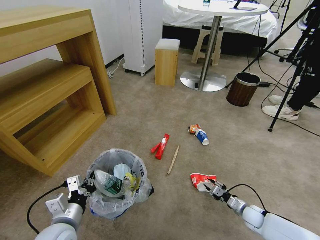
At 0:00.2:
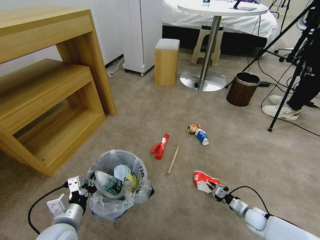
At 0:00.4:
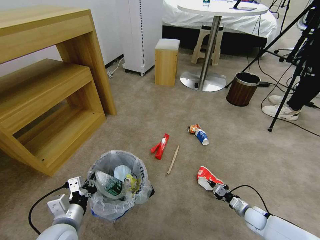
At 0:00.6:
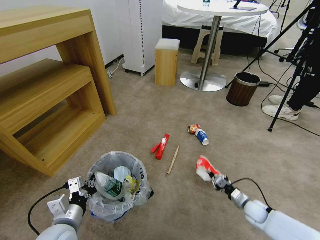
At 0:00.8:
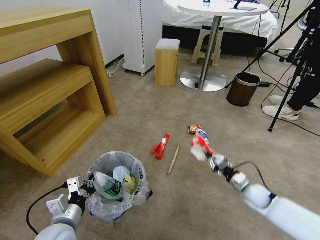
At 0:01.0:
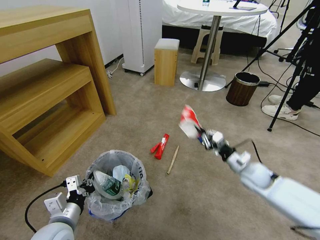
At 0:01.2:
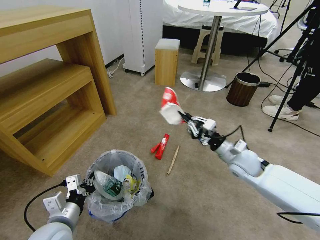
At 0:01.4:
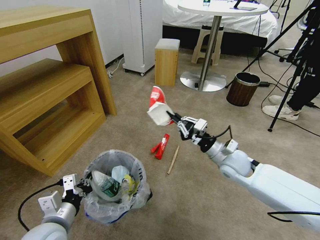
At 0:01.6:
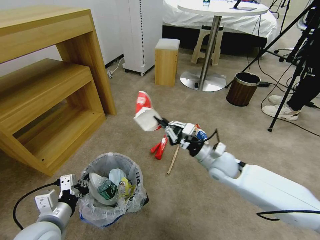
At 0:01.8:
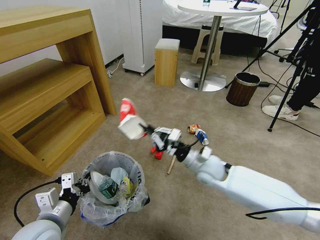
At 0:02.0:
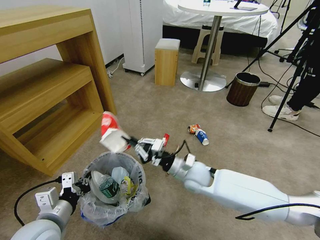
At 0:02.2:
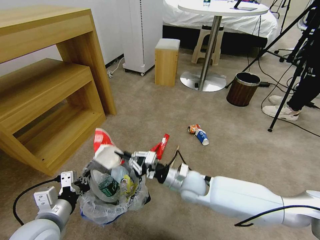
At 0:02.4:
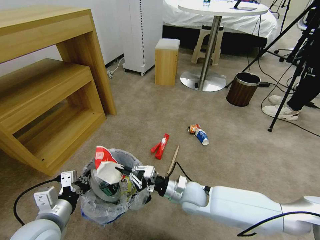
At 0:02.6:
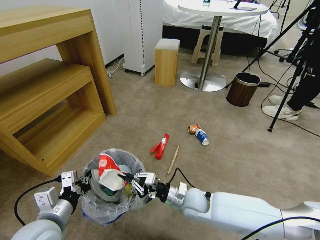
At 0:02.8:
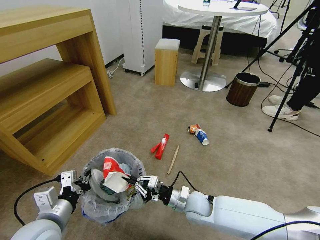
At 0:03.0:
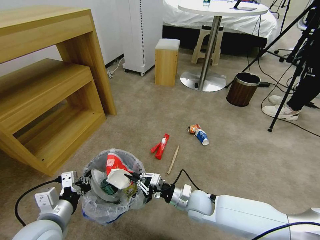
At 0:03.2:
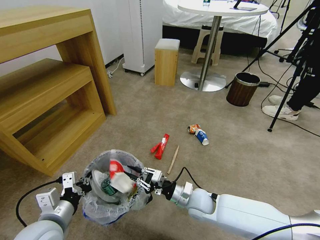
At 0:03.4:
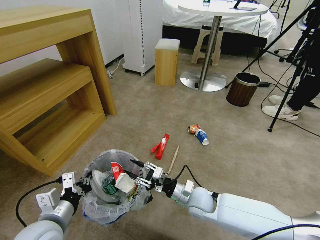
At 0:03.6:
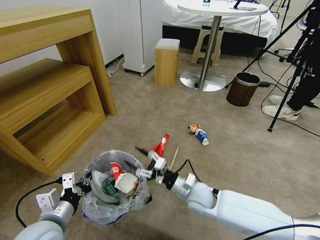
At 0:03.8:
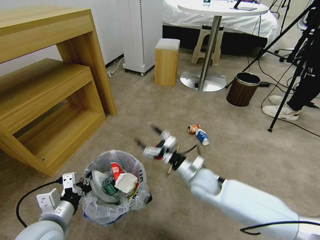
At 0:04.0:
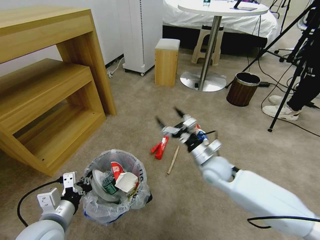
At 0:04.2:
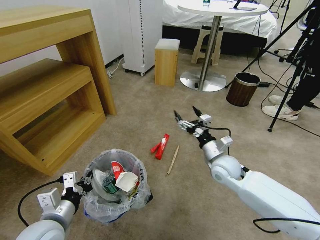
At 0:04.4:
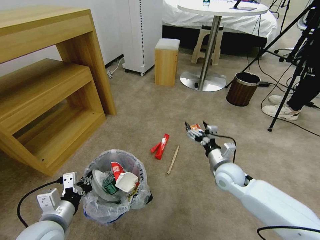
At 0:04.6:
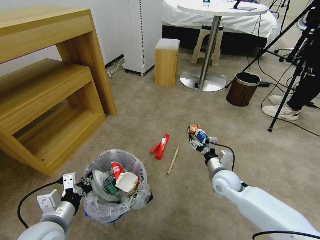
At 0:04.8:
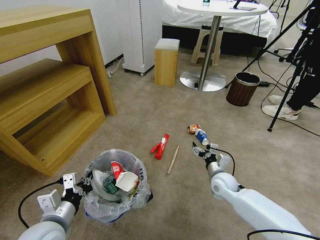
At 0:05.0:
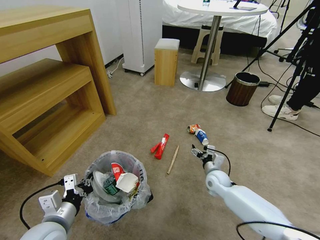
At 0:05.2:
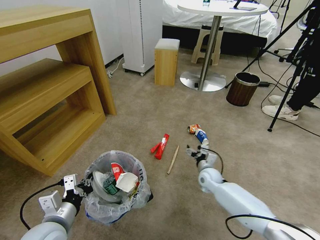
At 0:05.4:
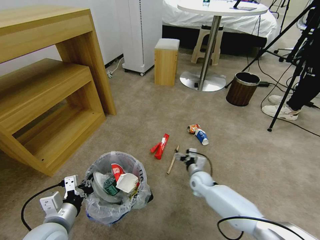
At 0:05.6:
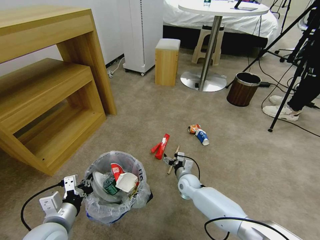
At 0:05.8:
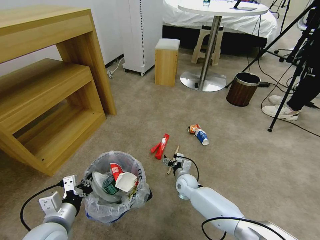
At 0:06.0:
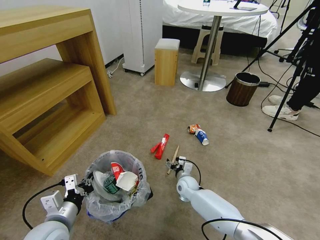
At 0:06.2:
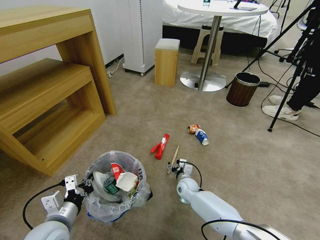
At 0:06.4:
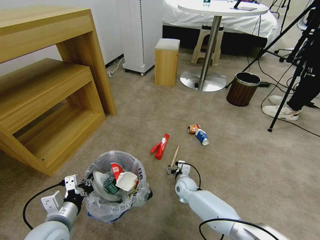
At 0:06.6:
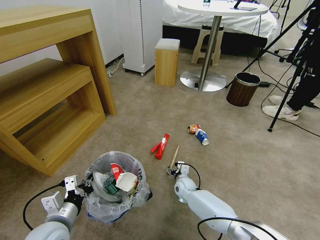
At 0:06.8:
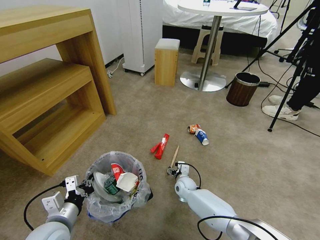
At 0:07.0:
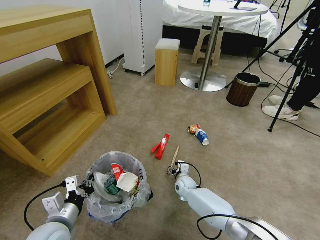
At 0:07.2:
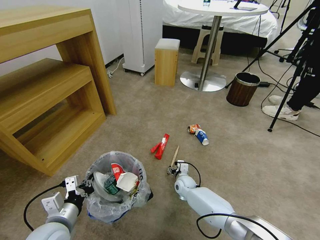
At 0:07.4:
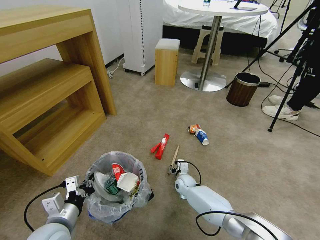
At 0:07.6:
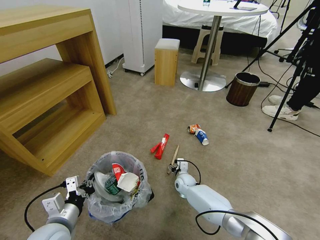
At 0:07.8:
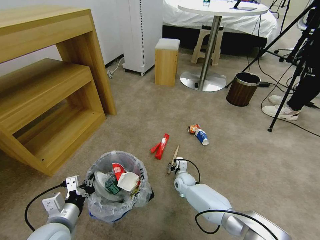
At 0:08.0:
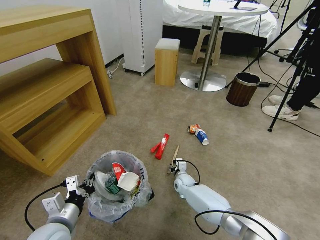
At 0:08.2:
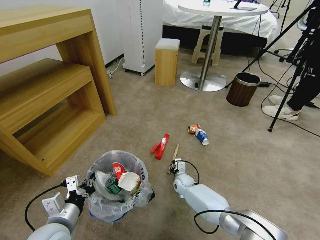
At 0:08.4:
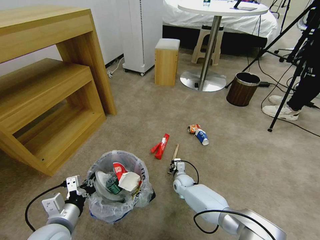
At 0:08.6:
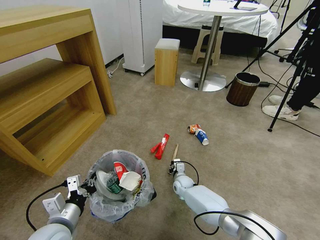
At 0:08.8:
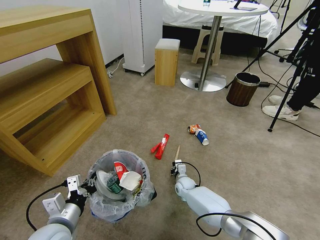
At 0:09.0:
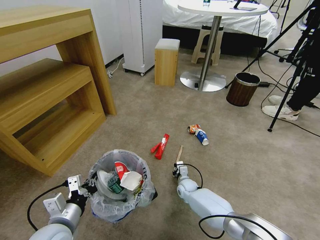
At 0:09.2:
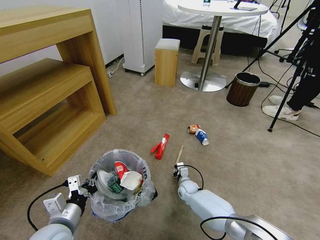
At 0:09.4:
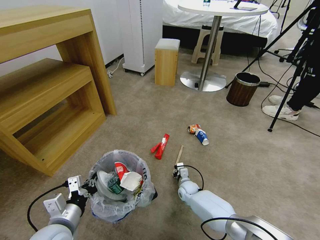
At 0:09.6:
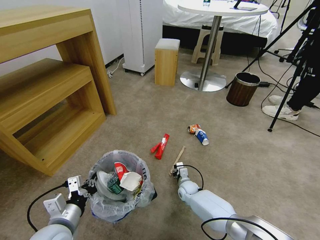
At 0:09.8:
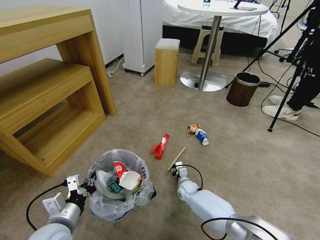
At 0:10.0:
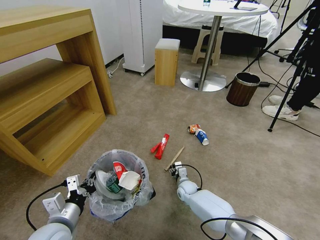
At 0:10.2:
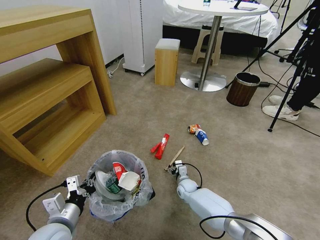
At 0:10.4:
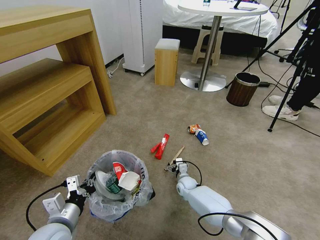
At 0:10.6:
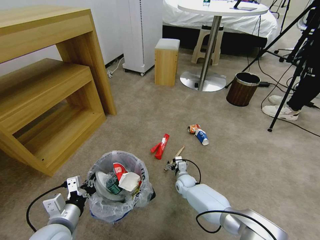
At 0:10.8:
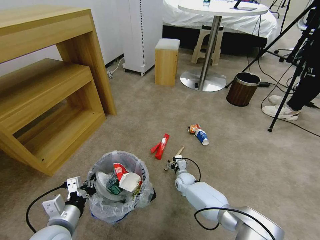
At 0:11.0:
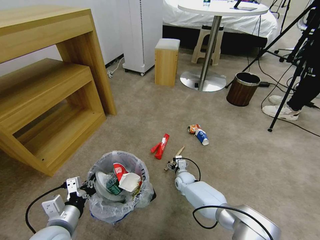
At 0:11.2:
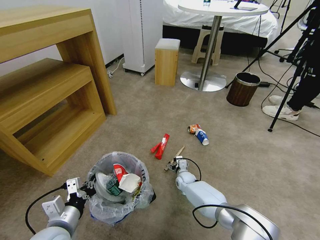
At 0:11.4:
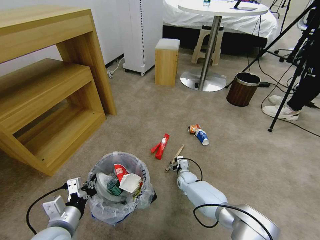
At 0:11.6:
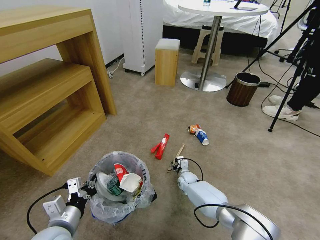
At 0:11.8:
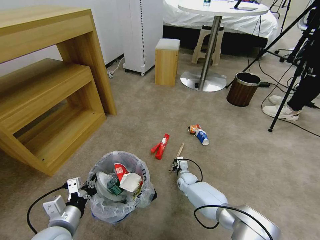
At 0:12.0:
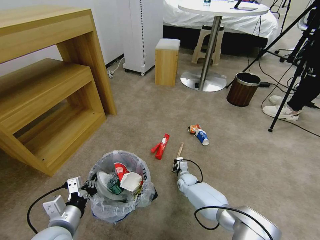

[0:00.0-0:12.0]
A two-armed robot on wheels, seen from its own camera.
Task of the whole recording: Pick up the trash bin and place the garbage on the floor into it.
0:00.0 to 0:01.6: The right gripper heads upward and to the left, covering some 35 cm, and closes.
0:01.6 to 0:03.0: The right gripper shifts approximately 20 cm downward, to the left and backward.
0:03.0 to 0:04.4: The right gripper is displaced to the right, upward and forward by about 15 cm, and opens up.
0:04.4 to 0:06.0: The right gripper shifts about 20 cm downward and to the left.
0:06.0 to 0:07.6: There are only small adjustments of the grippers.
0:07.6 to 0:09.0: The right gripper closes its fingers.
0:09.0 to 0:10.4: The right gripper opens.
0:10.4 to 0:12.0: The right gripper closes up.

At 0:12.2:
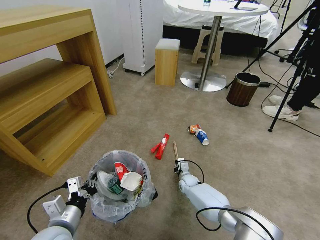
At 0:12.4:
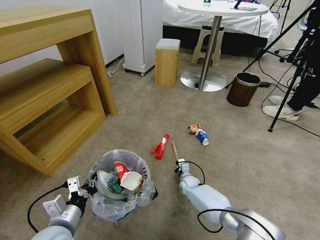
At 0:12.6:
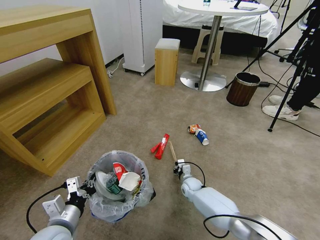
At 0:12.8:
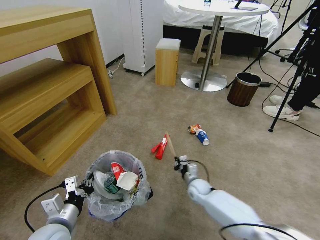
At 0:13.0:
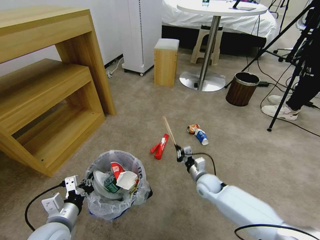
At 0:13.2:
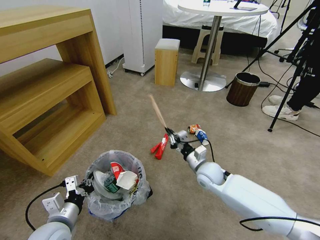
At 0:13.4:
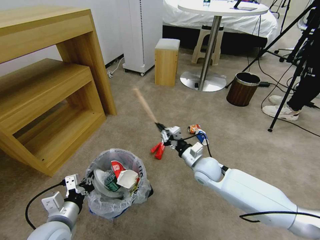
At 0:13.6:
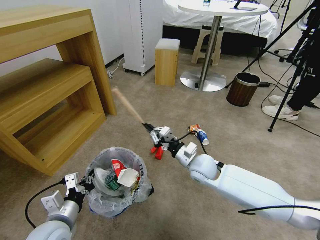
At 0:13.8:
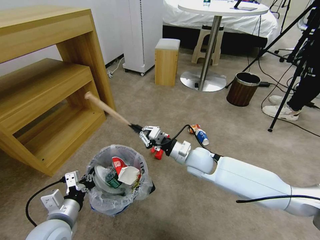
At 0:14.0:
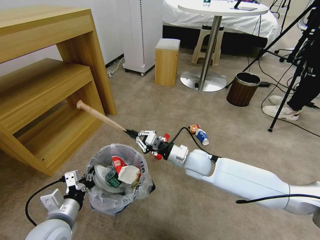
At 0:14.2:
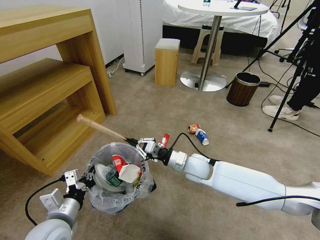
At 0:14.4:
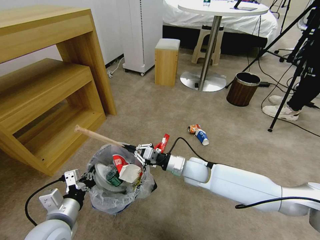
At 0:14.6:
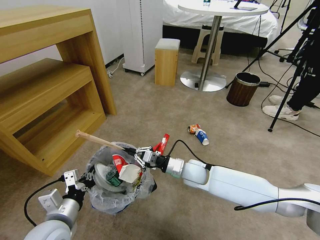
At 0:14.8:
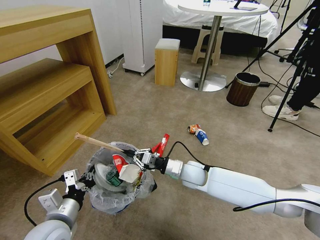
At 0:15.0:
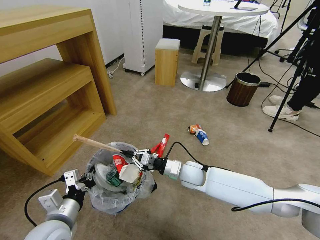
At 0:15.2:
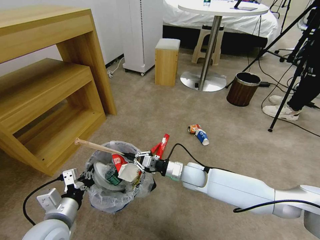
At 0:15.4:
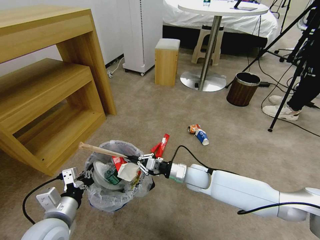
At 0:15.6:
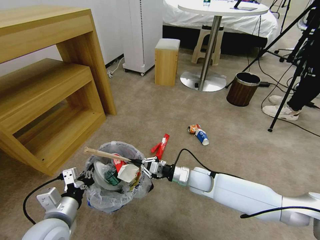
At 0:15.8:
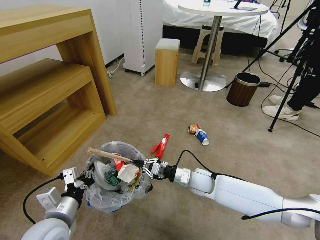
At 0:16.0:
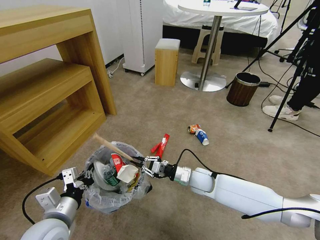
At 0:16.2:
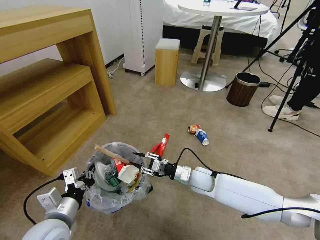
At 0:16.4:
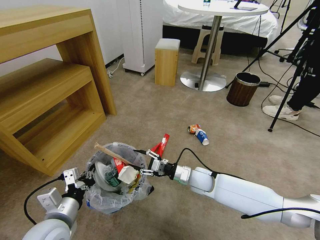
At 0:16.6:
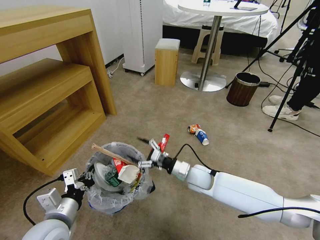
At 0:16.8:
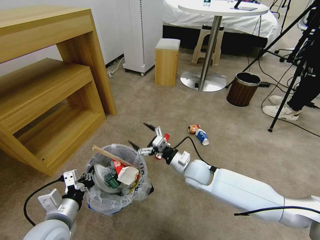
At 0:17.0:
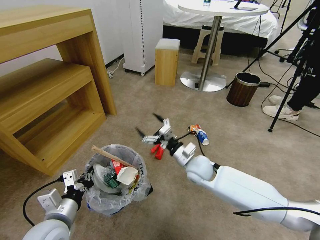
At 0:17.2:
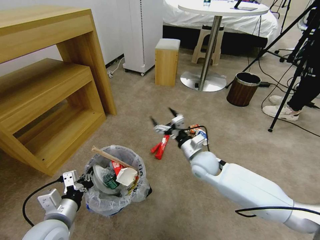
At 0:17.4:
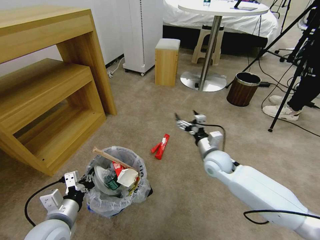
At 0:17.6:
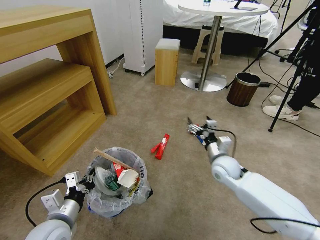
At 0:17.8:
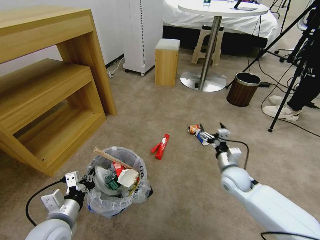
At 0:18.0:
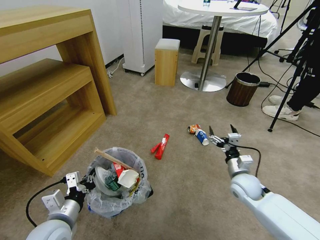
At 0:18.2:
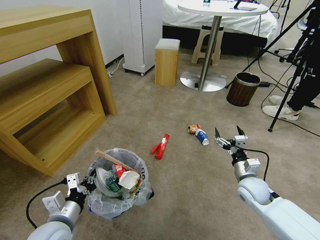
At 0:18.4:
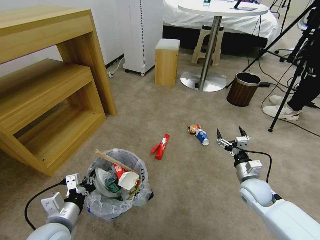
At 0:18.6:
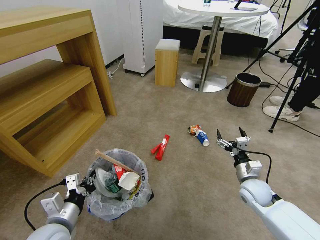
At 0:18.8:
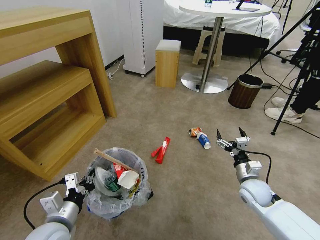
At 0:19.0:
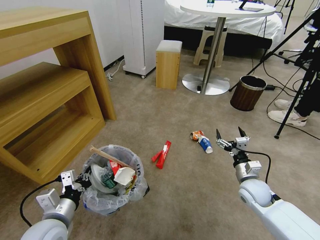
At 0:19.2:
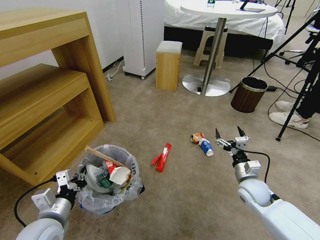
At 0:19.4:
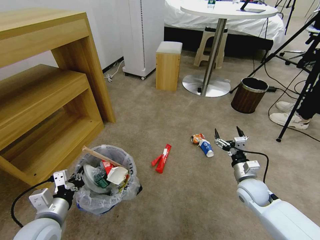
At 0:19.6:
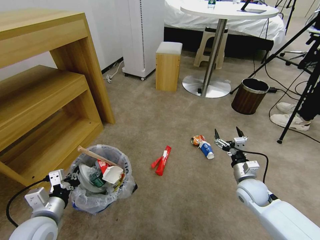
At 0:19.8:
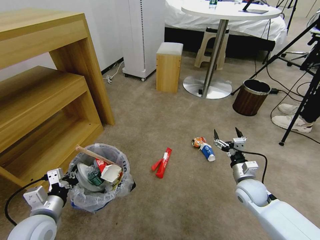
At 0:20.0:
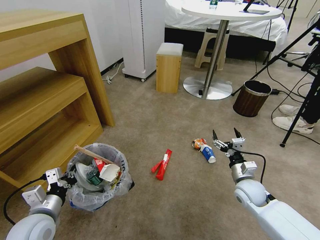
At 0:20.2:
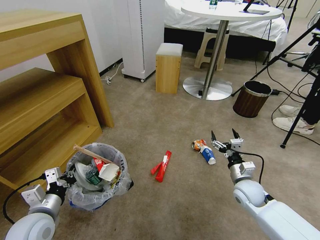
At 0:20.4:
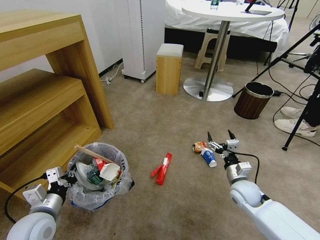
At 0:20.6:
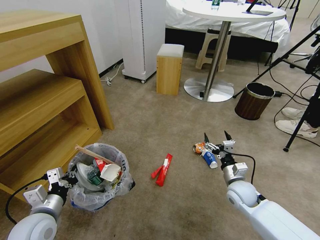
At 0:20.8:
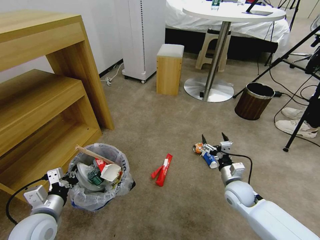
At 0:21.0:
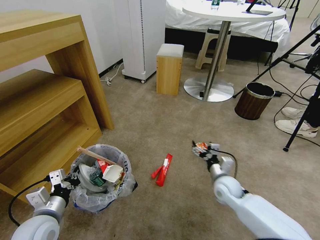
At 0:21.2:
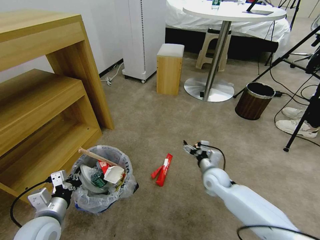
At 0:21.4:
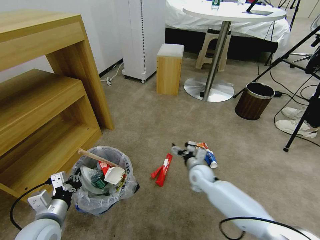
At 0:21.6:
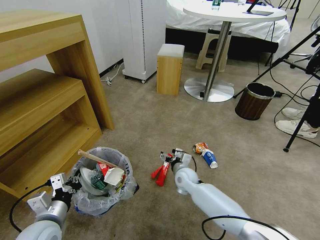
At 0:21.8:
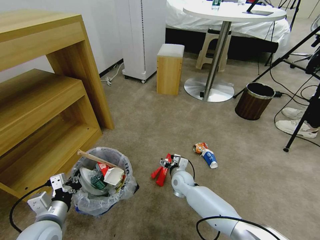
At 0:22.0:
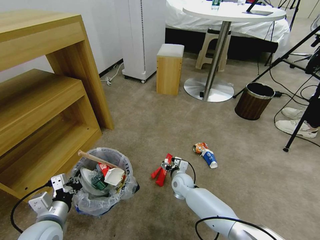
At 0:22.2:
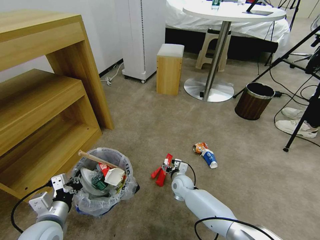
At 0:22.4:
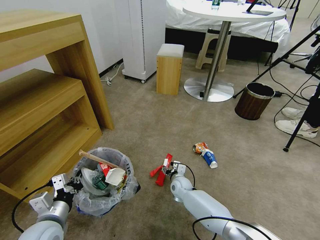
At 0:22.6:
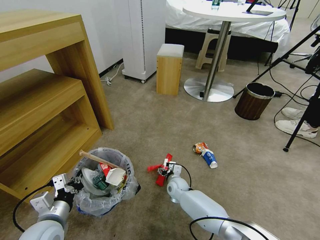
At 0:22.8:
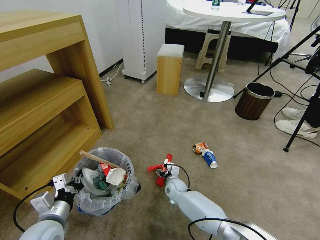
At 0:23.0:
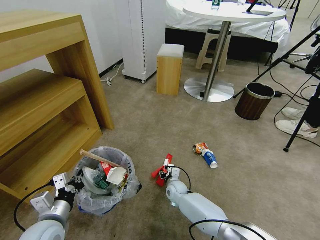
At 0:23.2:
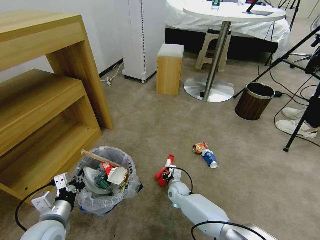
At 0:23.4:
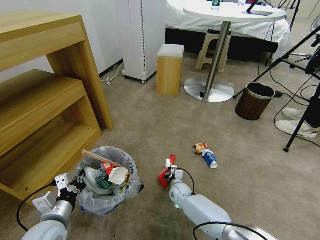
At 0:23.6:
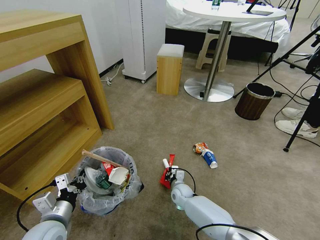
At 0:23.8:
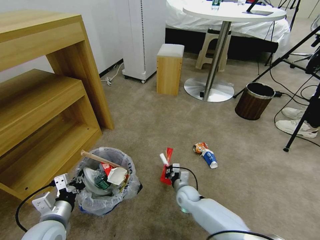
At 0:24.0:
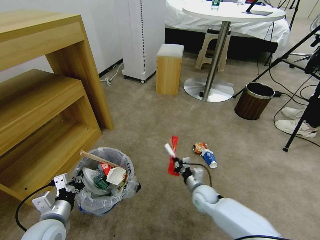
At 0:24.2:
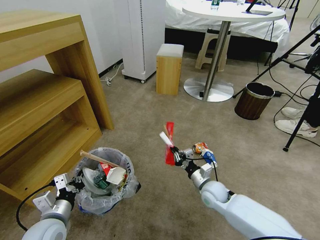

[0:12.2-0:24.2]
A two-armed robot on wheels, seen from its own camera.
Task of the whole recording: Pick up the trash bin and place the garbage on the floor into it.
0:12.2 to 0:13.8: The right gripper moves upward, some 25 cm.
0:13.8 to 0:15.2: The right gripper moves downward, about 10 cm.
0:15.2 to 0:16.6: The right gripper opens up.
0:16.6 to 0:18.2: The right gripper is displaced to the right by some 20 cm.
0:18.2 to 0:19.8: The left gripper ends up approximately 5 cm from where it was.
0:19.8 to 0:21.2: The right gripper is displaced to the left and forward by about 10 cm.
0:21.2 to 0:22.6: The right gripper goes about 20 cm downward and to the left.
0:22.6 to 0:24.2: The right gripper shifts some 15 cm to the right, upward and backward, and closes its fingers.
